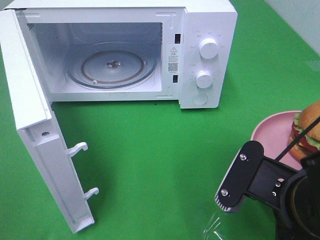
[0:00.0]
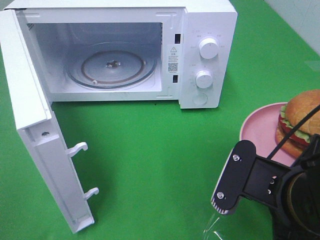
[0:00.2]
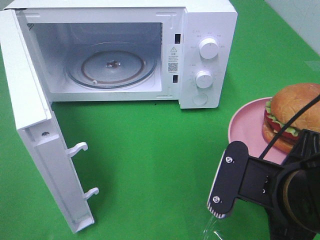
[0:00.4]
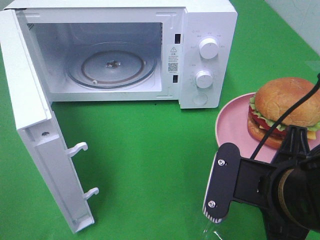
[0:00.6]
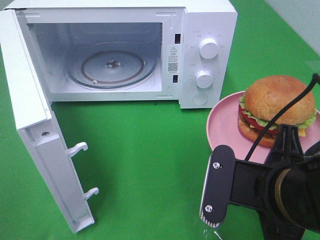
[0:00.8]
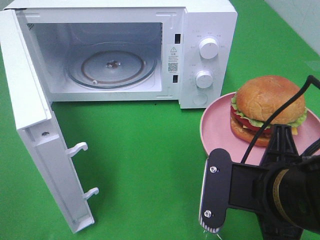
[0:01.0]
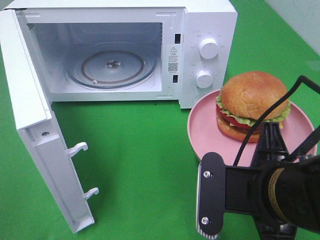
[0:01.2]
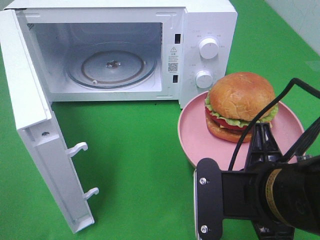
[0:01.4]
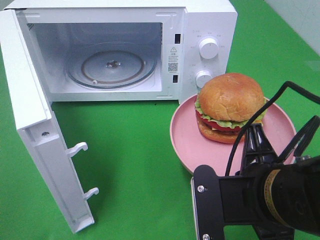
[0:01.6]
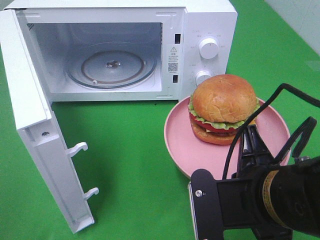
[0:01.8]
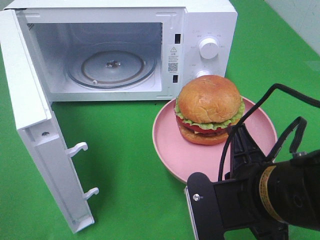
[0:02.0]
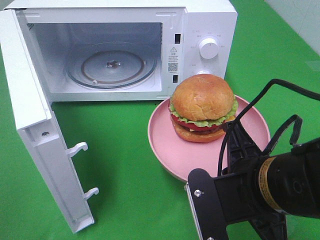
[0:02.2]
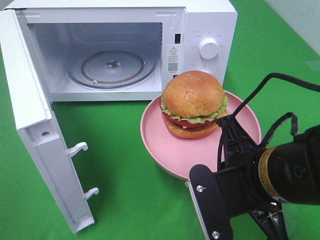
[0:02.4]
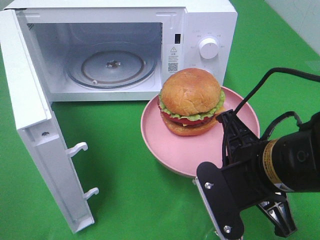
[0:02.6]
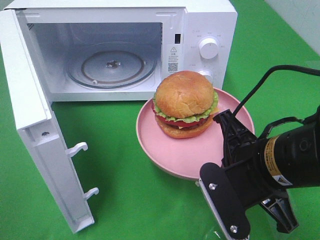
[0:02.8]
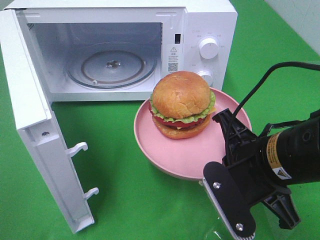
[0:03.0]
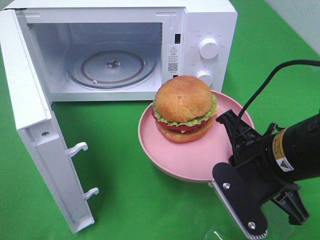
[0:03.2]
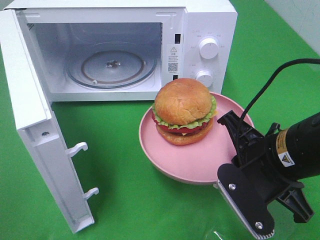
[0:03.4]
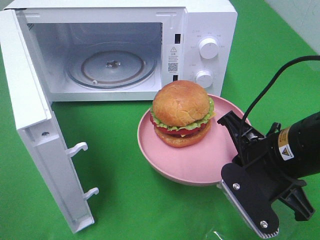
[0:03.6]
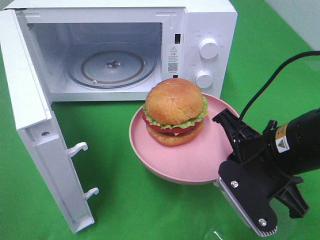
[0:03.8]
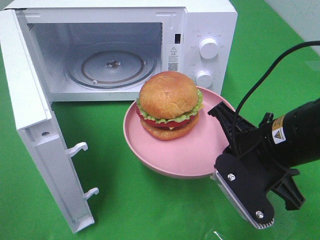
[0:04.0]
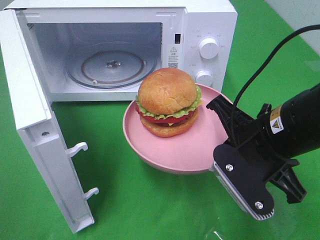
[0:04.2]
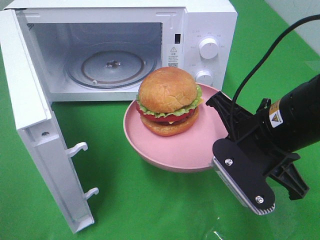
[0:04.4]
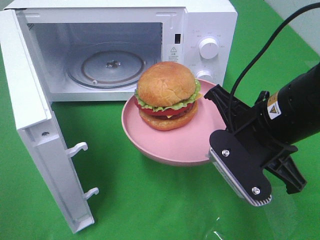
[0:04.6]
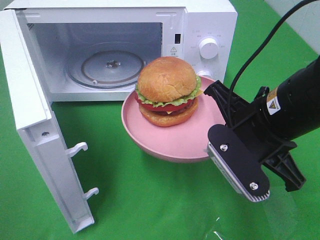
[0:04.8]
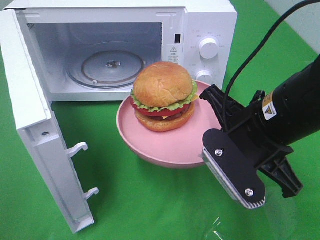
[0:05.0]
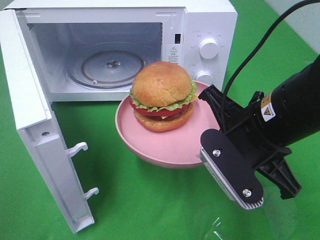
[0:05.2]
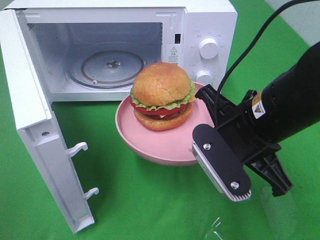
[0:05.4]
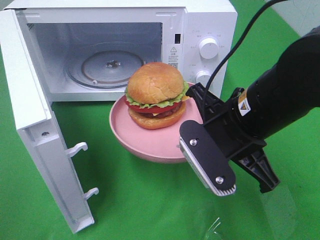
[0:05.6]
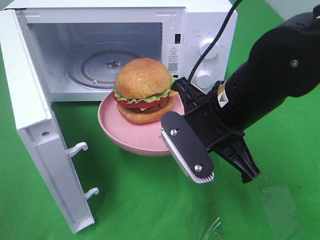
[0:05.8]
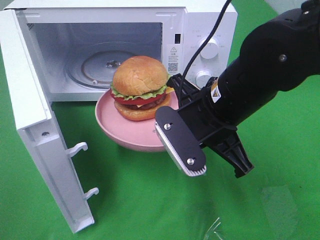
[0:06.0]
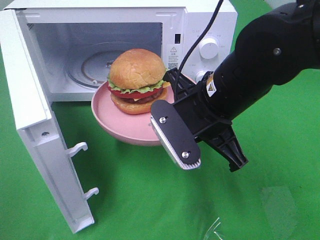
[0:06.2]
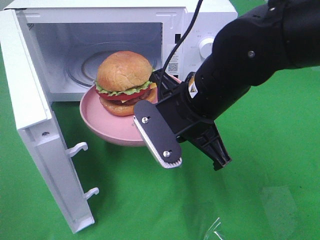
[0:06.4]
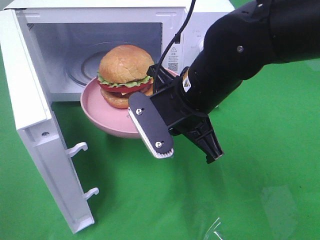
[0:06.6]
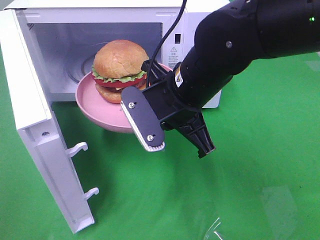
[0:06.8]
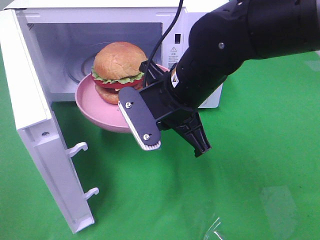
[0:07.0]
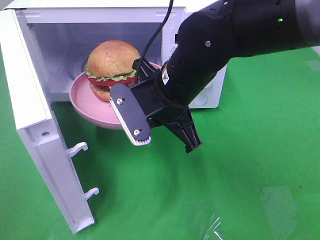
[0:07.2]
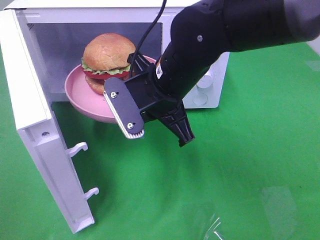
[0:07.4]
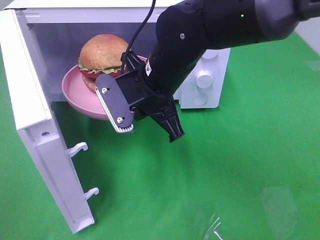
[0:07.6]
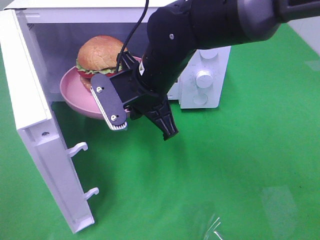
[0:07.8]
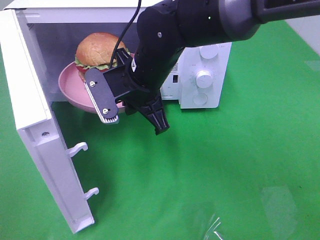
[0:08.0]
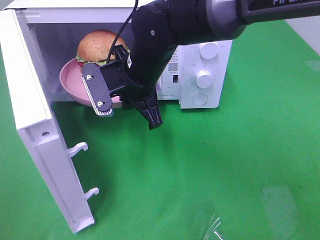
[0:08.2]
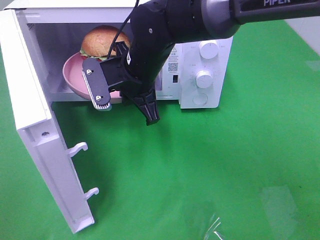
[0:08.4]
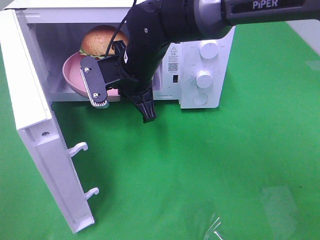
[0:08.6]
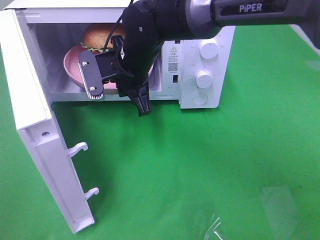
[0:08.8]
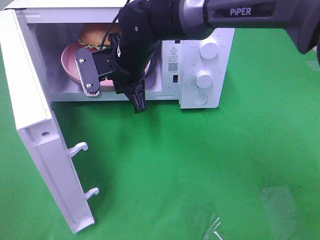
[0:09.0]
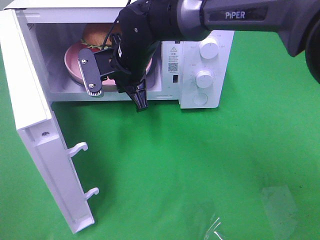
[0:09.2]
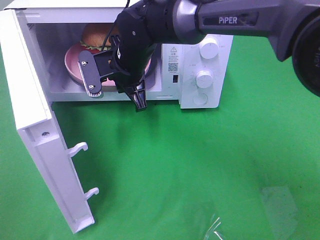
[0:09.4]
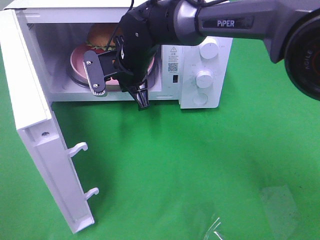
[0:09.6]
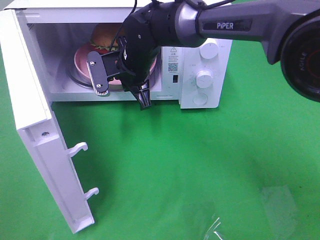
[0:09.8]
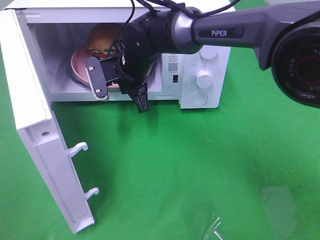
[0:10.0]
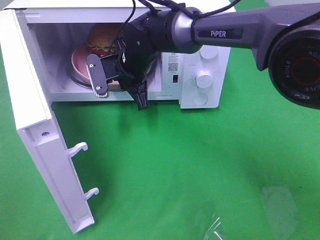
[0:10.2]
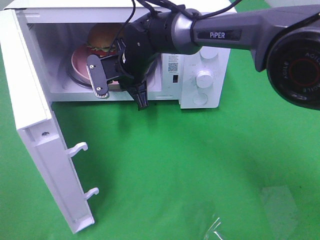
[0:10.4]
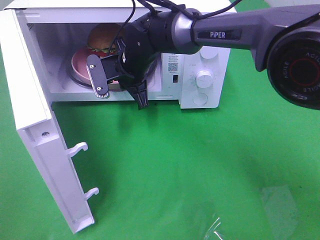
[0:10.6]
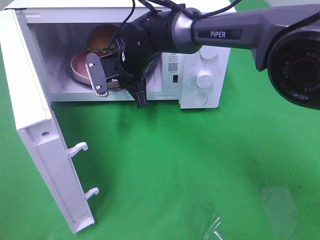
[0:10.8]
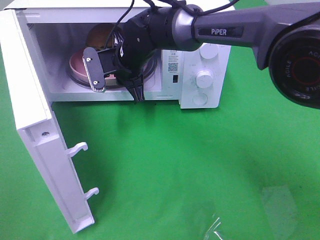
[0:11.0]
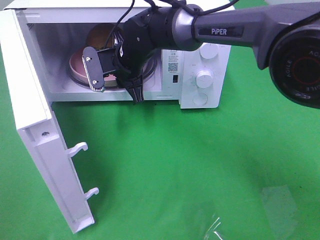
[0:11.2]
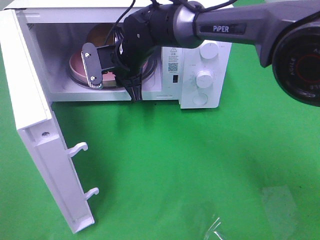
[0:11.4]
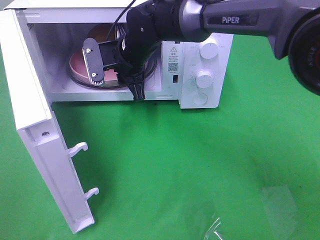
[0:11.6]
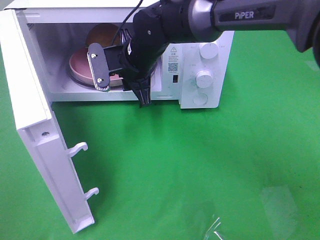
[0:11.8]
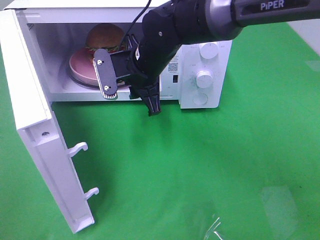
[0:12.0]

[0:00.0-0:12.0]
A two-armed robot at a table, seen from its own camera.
Task of the whole recording: Heat the burger.
Step, 0:00.0 to 0:11.8: Right hand: place the plate in the microwave.
0:01.6 to 0:03.0: The right gripper shifts by some 5 cm.
0:03.0 to 0:04.4: The grippers stay close to where they were, moving slightly.
0:04.4 to 0:06.0: The right gripper heads to the left, covering some 5 cm.
0:06.0 to 0:07.6: The right gripper is displaced to the left and forward by about 10 cm.
0:07.6 to 0:09.0: The right gripper moves forward, approximately 10 cm.
0:09.0 to 0:10.4: The right gripper ends up roughly 5 cm from where it was.
0:10.4 to 0:12.0: The right gripper changes place by some 5 cm, and opens.

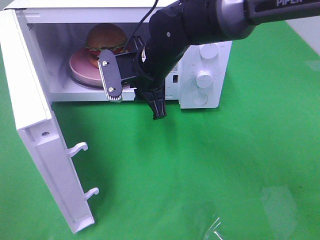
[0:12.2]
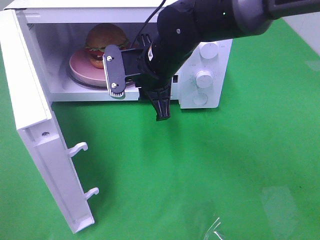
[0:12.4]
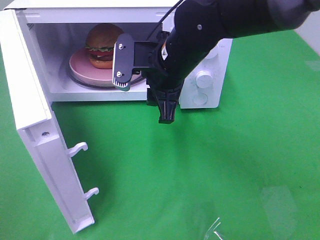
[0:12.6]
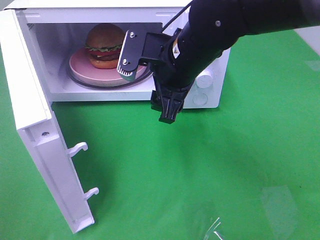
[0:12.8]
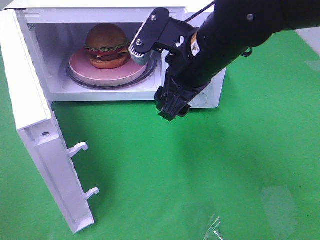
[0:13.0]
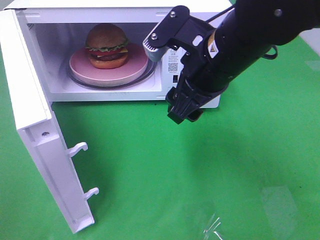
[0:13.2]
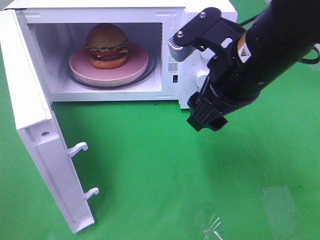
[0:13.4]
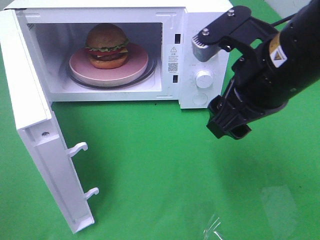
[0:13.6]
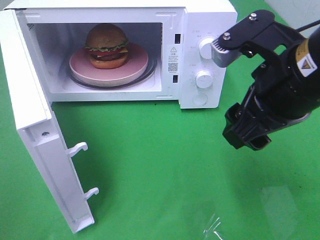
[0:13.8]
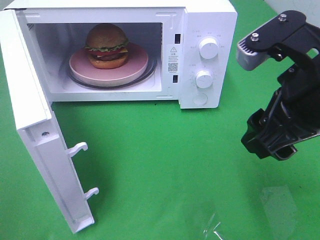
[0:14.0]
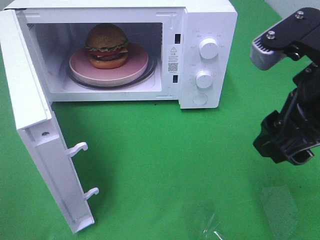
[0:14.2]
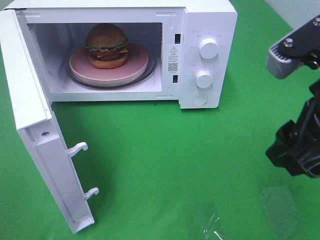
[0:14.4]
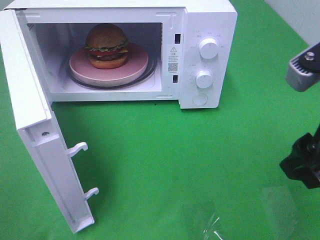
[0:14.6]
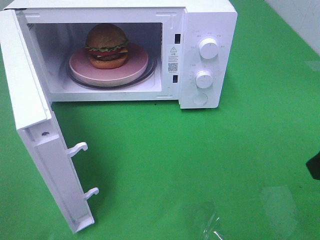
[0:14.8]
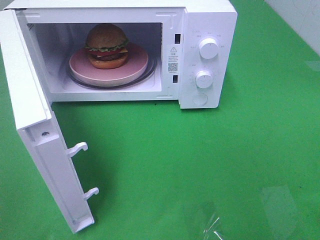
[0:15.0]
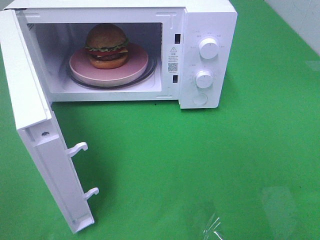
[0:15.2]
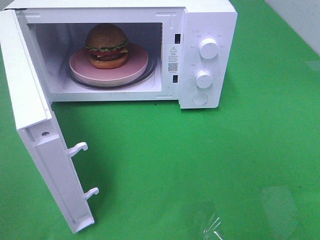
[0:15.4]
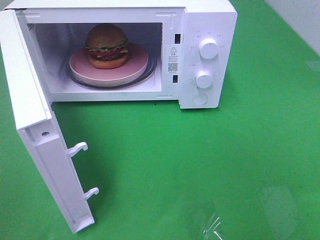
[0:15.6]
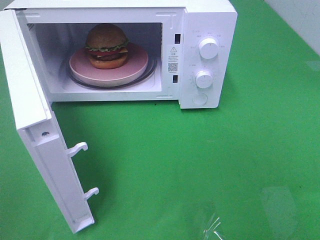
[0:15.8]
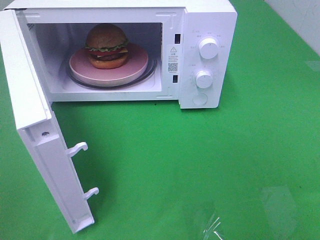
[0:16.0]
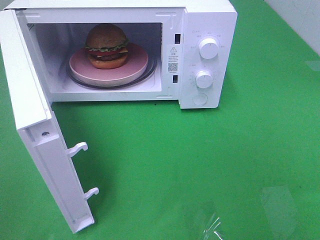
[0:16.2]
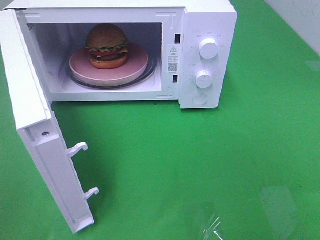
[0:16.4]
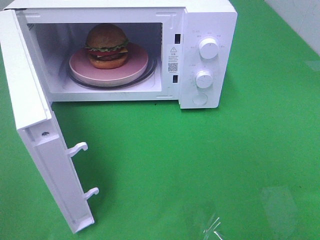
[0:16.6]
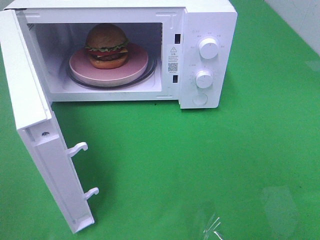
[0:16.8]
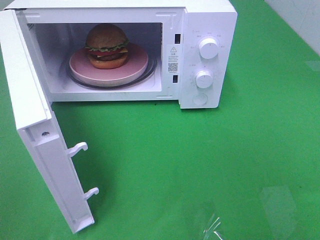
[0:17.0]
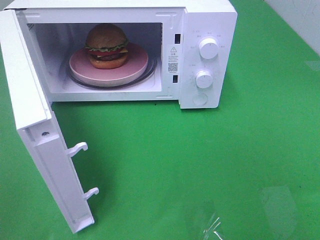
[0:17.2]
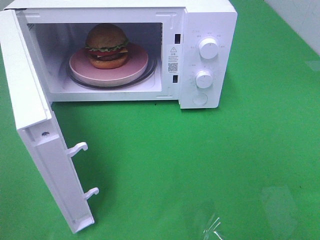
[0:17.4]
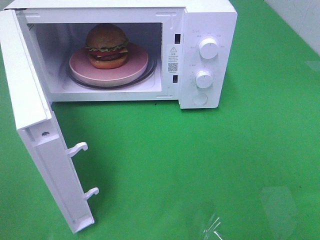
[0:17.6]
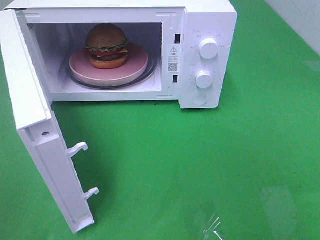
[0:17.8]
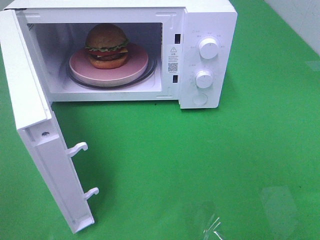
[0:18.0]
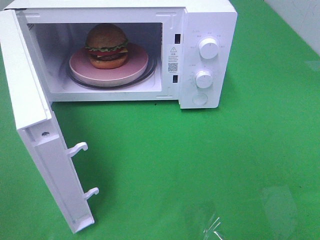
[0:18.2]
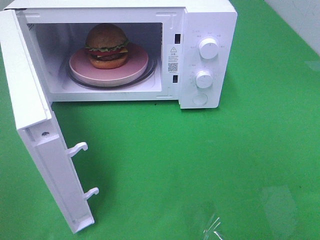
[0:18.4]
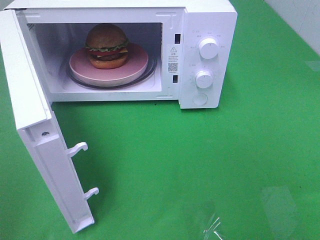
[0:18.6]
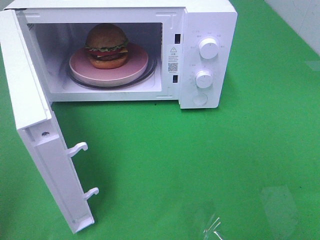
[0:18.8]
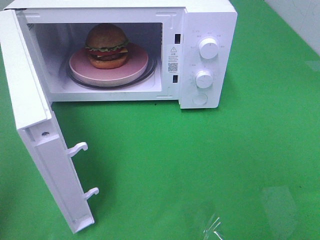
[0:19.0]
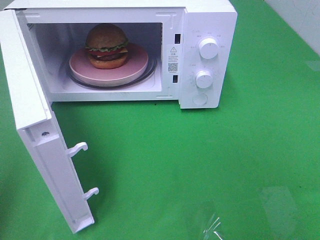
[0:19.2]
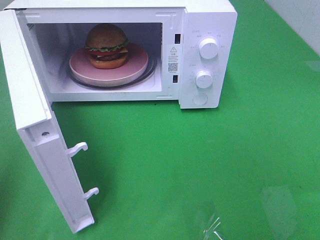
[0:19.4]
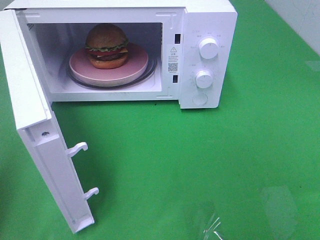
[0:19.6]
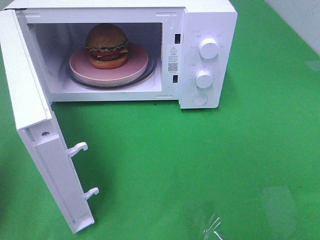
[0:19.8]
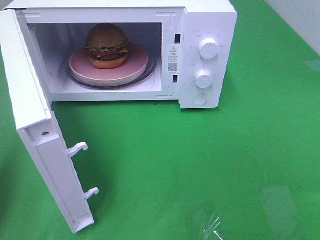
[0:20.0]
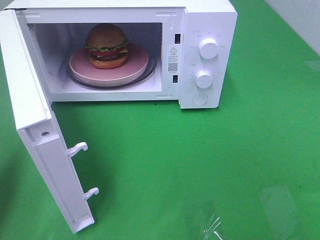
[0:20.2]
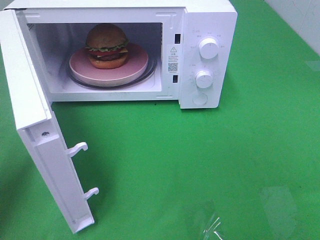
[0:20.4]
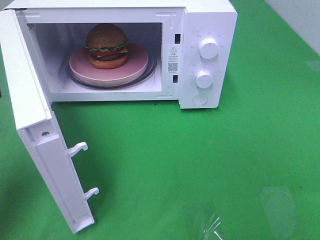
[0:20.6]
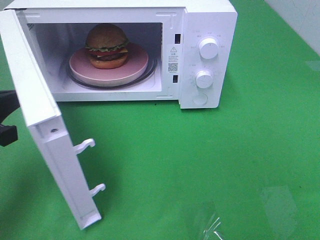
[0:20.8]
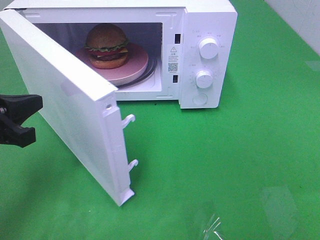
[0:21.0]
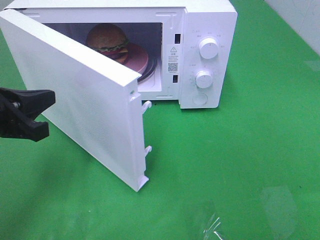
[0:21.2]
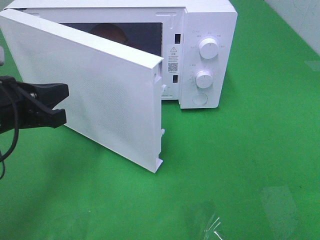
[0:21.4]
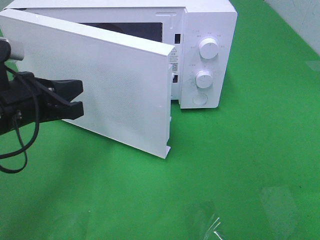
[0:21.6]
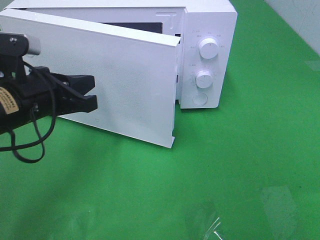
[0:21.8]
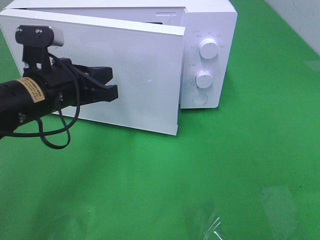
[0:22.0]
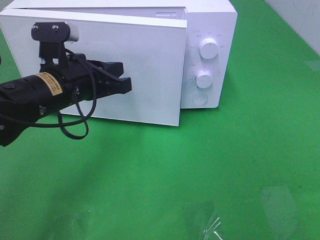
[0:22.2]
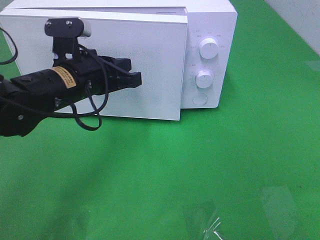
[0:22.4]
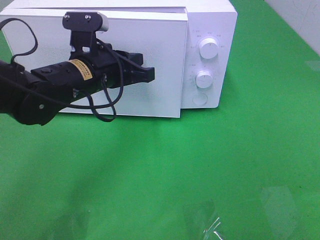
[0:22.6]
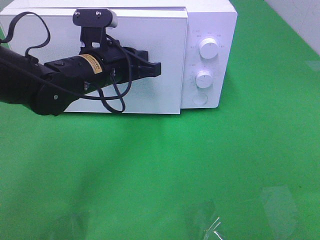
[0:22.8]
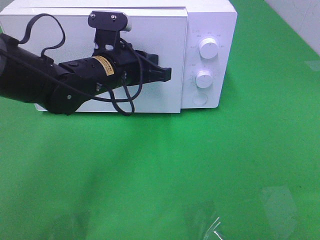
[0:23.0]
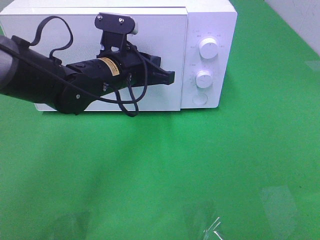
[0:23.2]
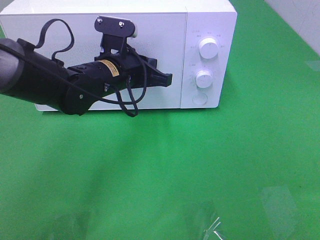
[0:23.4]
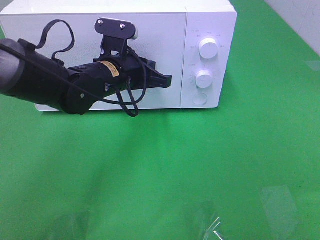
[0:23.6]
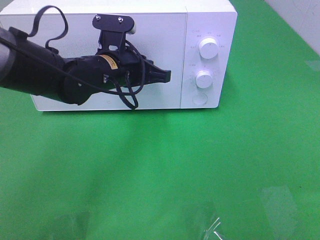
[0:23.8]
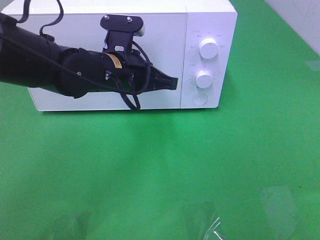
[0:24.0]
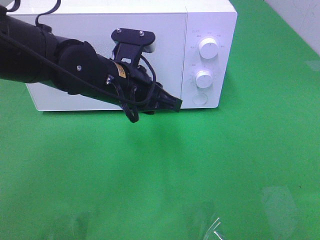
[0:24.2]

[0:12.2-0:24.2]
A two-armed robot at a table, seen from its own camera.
Task of the whole recording: Heat the burger.
Step, 0:12.2 to 0:24.0: Left hand: close the microwave door.
0:12.2 to 0:13.8: The right gripper is displaced backward, to the right and upward by roughly 25 cm, and opens.
0:13.8 to 0:15.2: The right gripper goes approximately 15 cm to the right and backward.
0:16.6 to 0:18.2: Both grippers stay put.
0:19.8 to 0:21.2: The left gripper goes some 15 cm to the right, forward and downward.
0:21.2 to 0:22.6: The left gripper moves to the right and forward, about 15 cm.
0:22.6 to 0:24.2: The left gripper opens.
